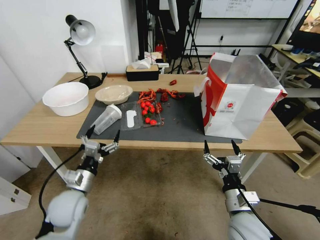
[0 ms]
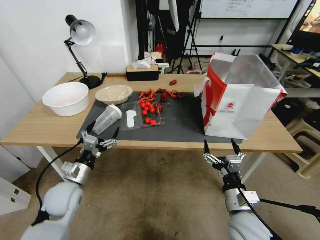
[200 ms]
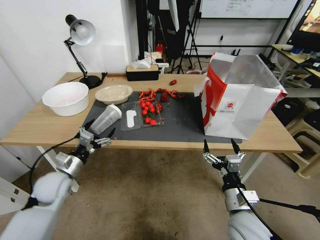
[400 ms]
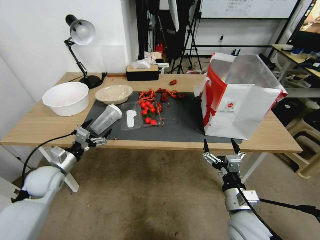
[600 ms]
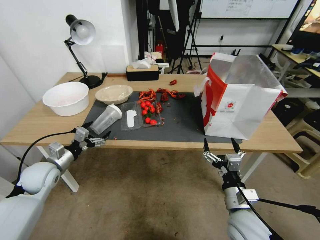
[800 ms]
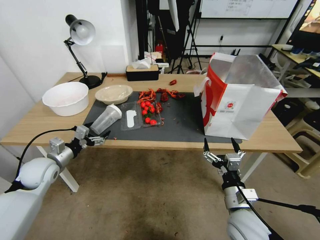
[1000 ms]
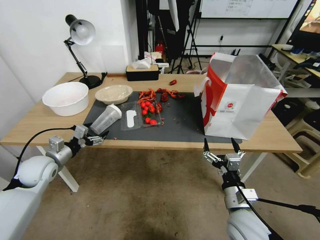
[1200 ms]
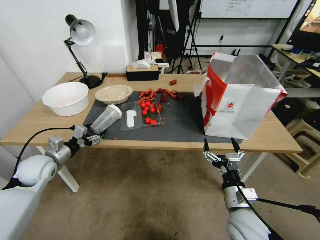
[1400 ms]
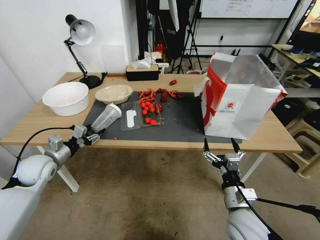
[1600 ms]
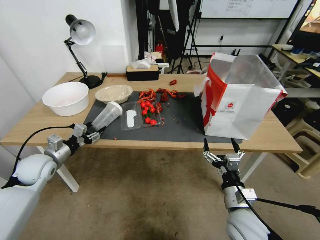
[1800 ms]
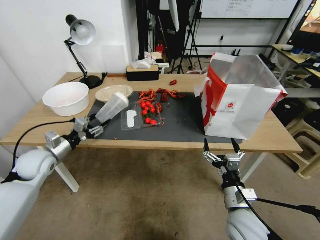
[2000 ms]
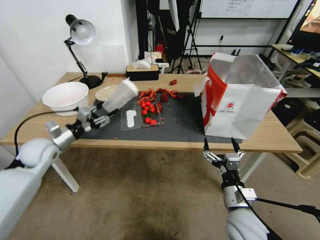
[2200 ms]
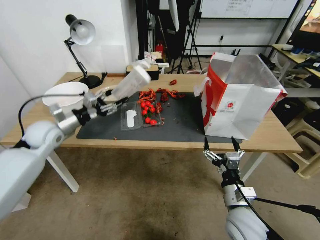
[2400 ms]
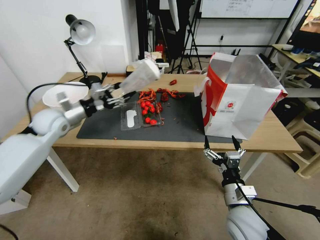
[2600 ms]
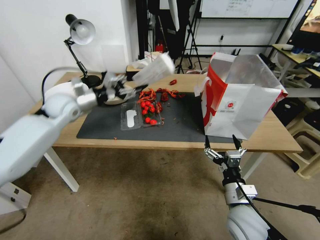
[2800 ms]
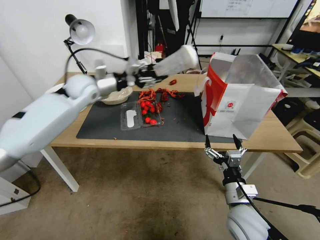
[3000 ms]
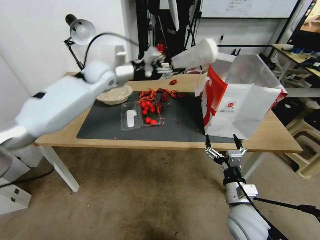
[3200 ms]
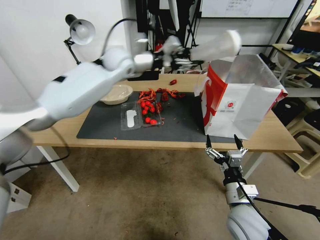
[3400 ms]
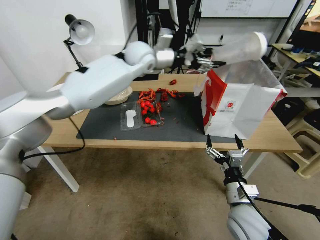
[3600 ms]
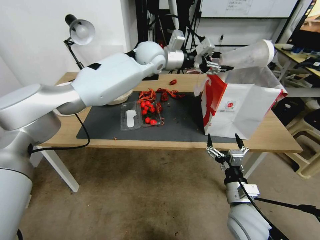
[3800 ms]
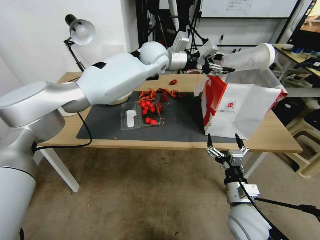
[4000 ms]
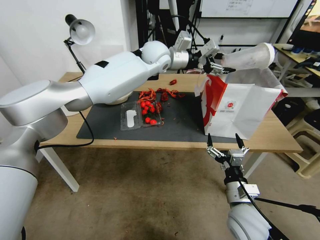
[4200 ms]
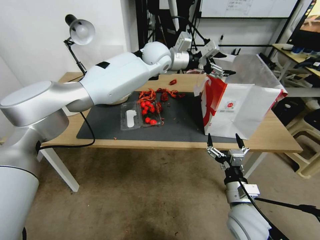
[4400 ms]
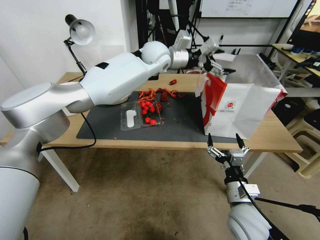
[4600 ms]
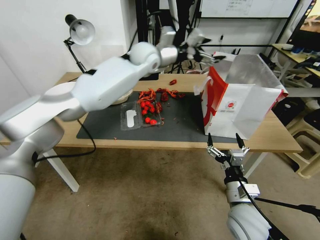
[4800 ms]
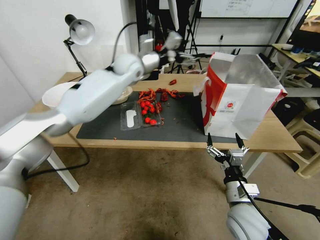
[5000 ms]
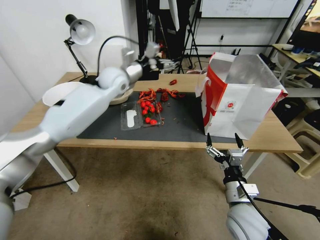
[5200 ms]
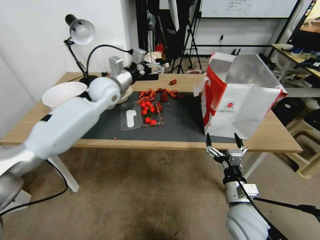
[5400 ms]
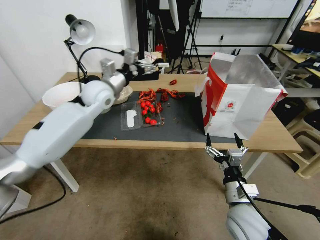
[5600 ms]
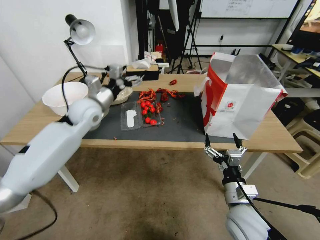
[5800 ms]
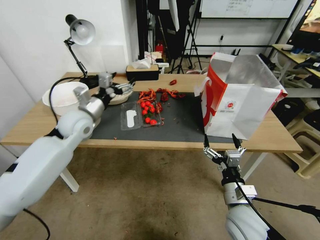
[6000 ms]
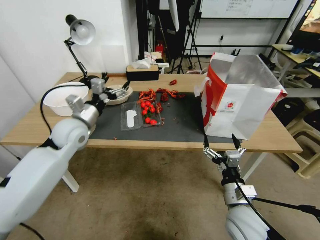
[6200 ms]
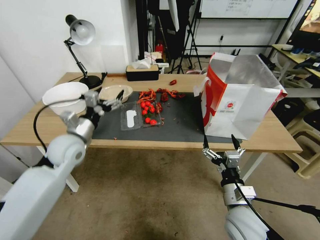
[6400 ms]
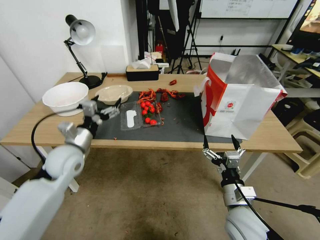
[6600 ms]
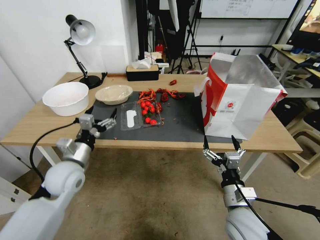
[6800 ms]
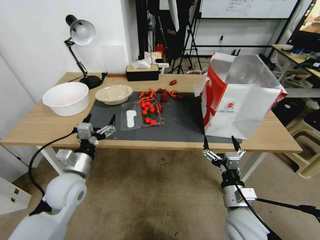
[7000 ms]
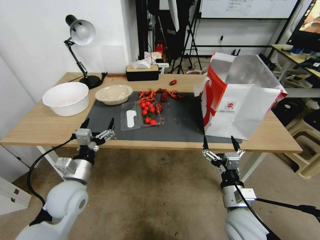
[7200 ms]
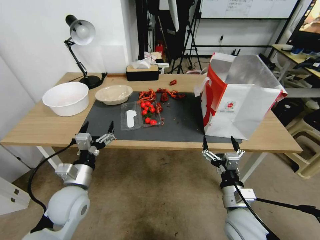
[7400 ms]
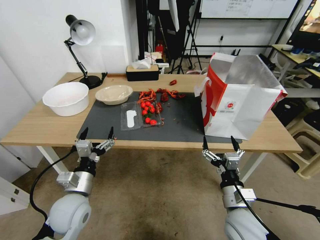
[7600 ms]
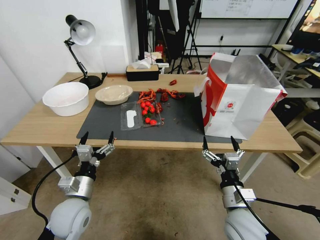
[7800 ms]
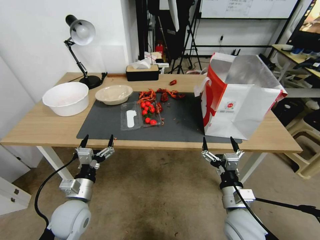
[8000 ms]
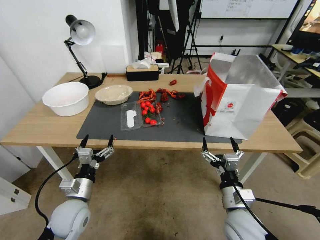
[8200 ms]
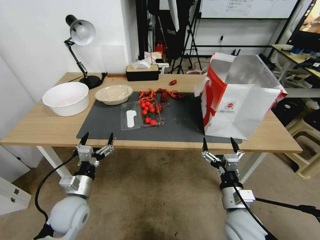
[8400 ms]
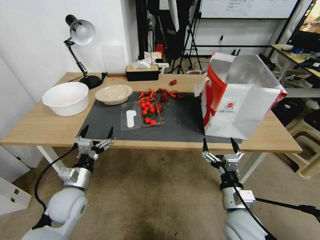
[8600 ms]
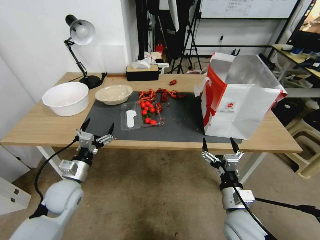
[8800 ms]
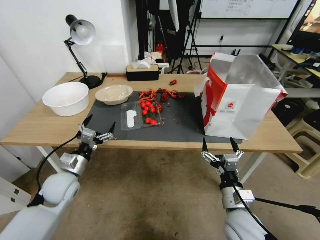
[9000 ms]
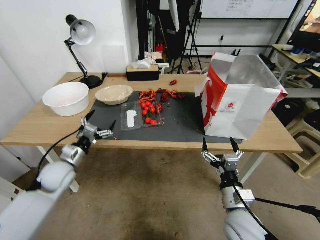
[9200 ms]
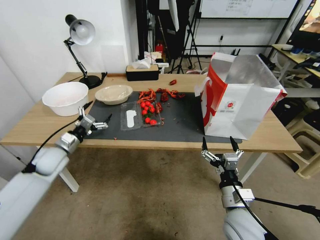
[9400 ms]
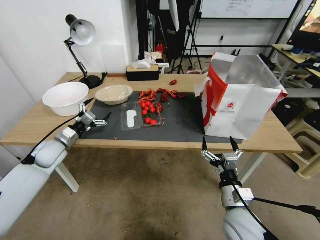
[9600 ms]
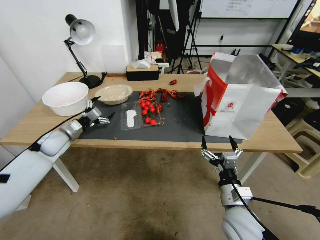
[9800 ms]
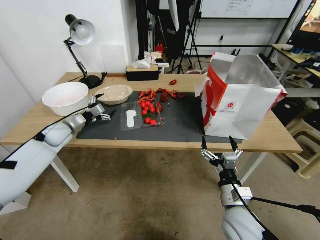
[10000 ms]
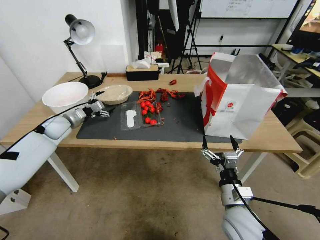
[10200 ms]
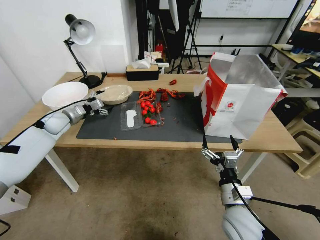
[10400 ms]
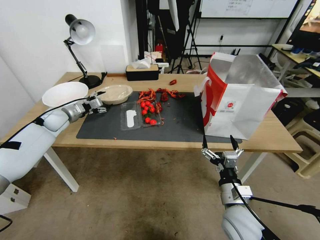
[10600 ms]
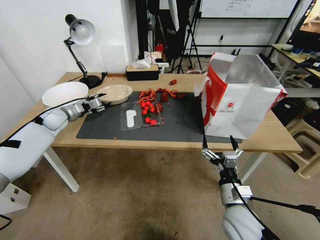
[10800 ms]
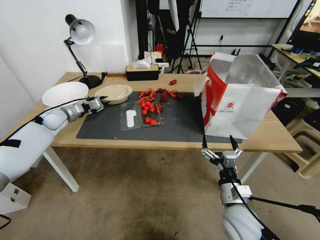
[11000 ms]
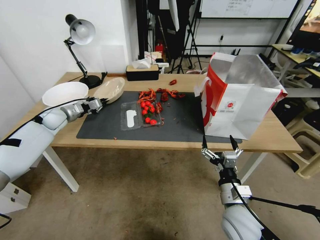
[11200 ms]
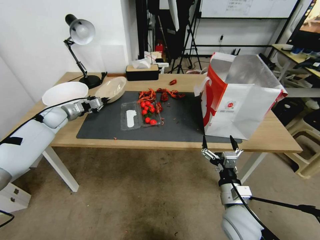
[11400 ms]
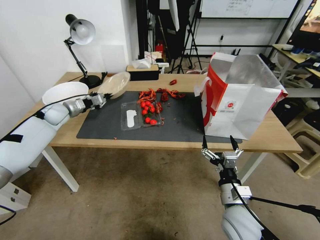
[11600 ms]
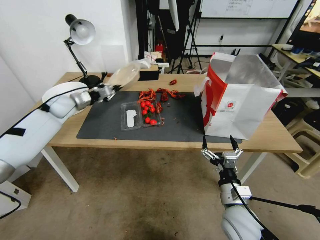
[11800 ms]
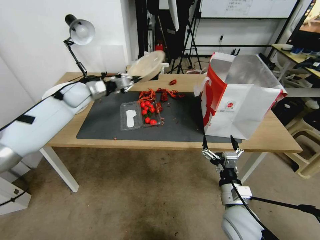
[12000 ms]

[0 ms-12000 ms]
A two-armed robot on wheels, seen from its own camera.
0 ms to 1600 ms: The left gripper shifts roughly 15 cm to the left and forward, and closes up.
1600 ms to 3000 ms: The left gripper shifts some 30 cm upward, forward and to the right.
3000 ms to 4400 ms: The left gripper is displaced to the right by roughly 25 cm.
4400 ms to 6000 ms: The left gripper is displaced to the left, backward and downward by some 35 cm.
6000 ms to 7600 ms: The left gripper moves backward and downward, roughly 25 cm.
7600 ms to 9000 ms: The left gripper goes some 10 cm forward and to the left.
9000 ms to 10400 ms: The left gripper moves forward and to the left, roughly 20 cm.
10400 ms to 12000 ms: The left gripper heads forward and upward, covering roughly 10 cm, and closes.

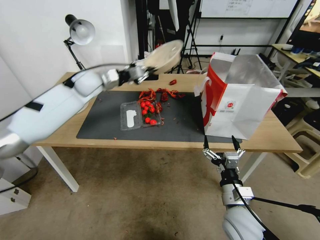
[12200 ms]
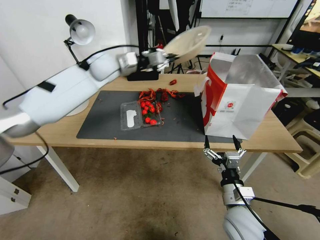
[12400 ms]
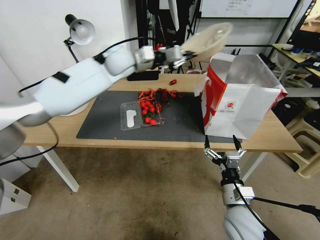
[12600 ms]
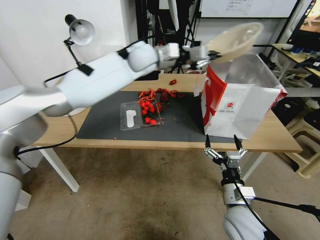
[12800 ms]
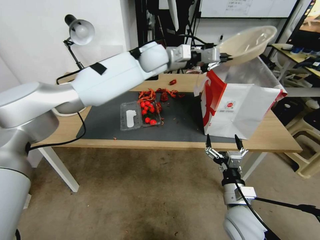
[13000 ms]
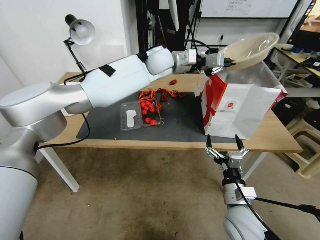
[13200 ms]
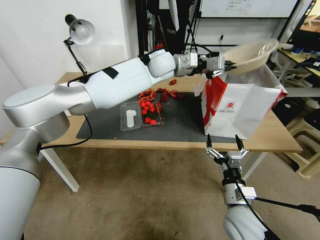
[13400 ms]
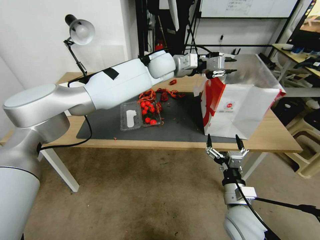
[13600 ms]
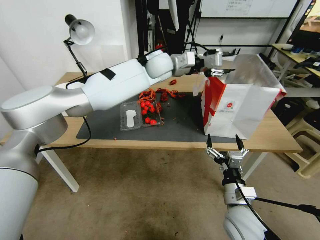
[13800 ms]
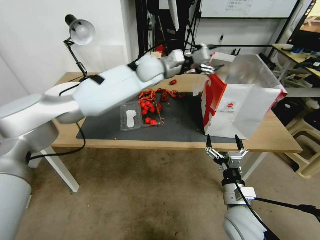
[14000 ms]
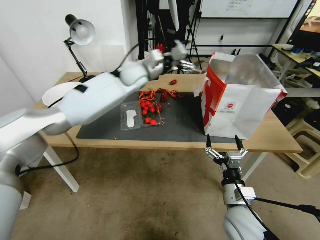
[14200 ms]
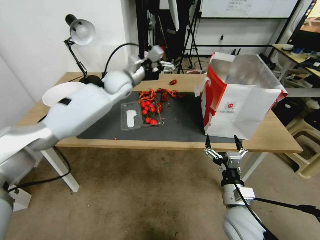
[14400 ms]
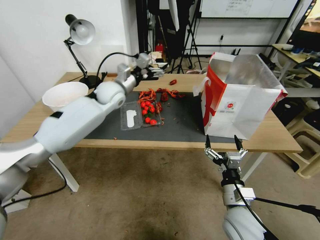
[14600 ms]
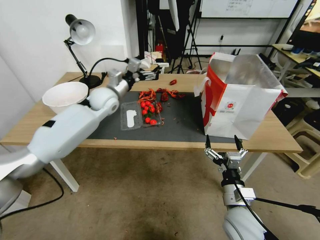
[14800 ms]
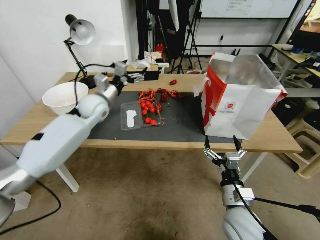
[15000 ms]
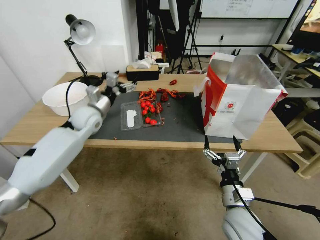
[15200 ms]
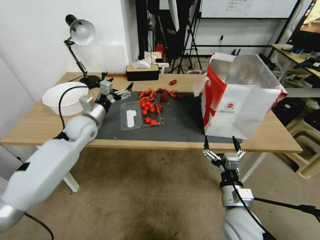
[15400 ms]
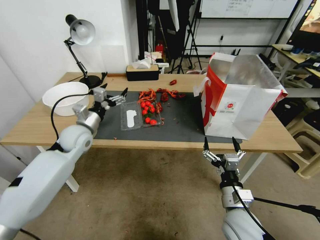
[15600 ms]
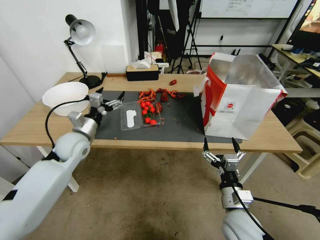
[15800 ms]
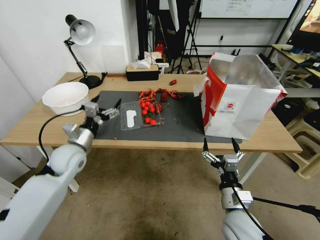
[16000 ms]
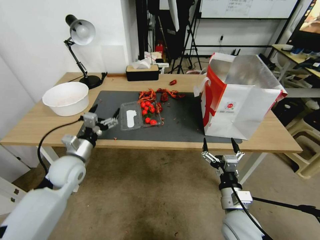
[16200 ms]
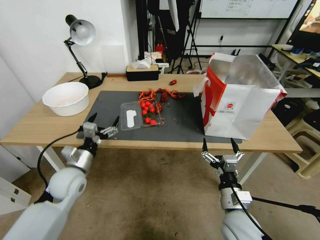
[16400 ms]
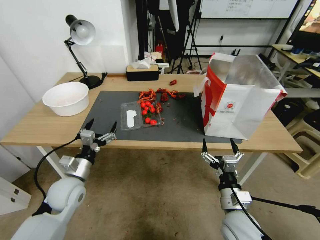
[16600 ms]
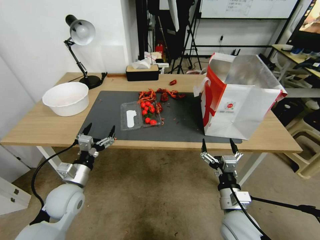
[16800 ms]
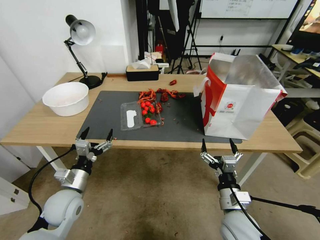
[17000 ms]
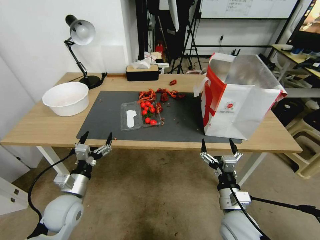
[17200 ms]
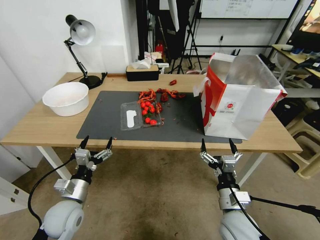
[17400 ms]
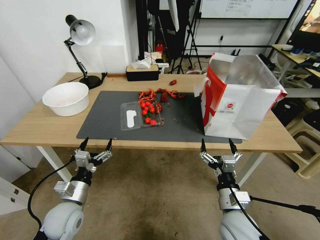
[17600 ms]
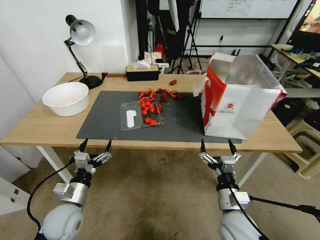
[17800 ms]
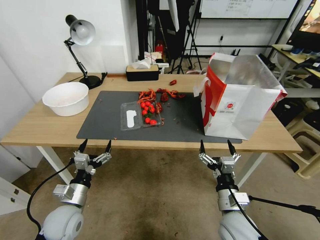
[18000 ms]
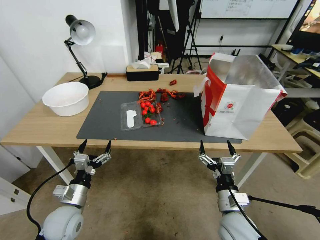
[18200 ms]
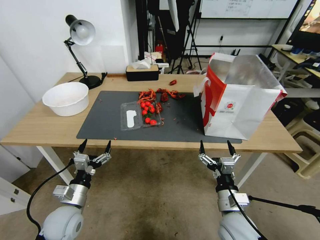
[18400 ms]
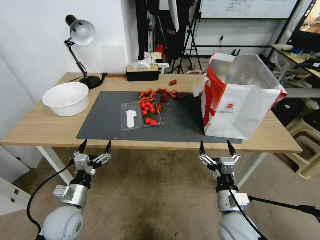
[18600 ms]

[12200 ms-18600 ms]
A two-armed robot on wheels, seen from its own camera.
12200 ms to 13800 ms: The left gripper heads to the right, covering about 35 cm, and opens.
13800 ms to 15400 ms: The left gripper shifts roughly 35 cm to the left, downward and backward, and opens.
15400 ms to 17000 ms: The left gripper goes about 25 cm backward and downward.
17000 ms to 18600 ms: The grippers stay close to where they were, moving slightly.
